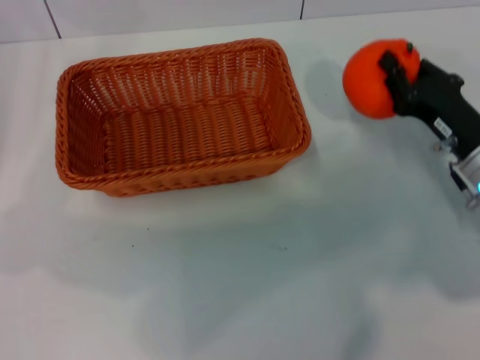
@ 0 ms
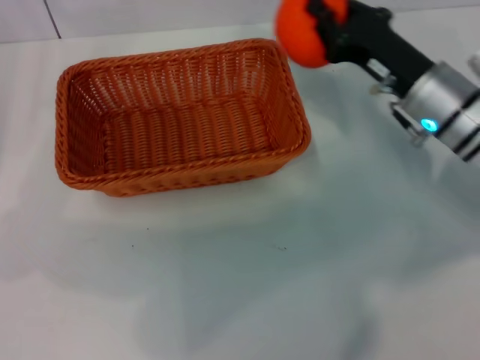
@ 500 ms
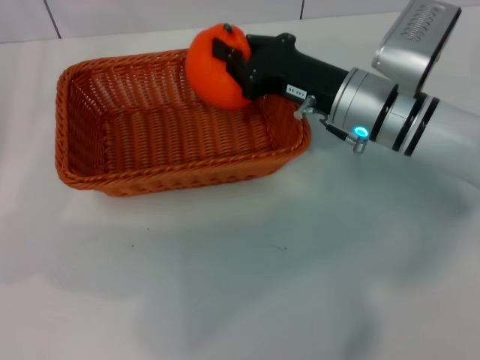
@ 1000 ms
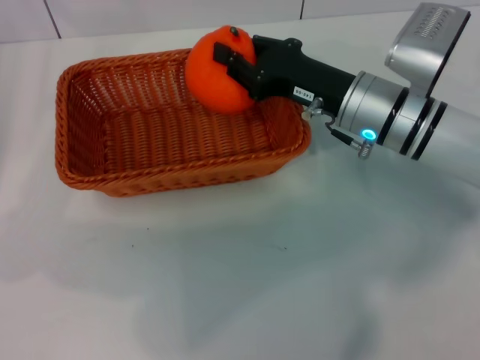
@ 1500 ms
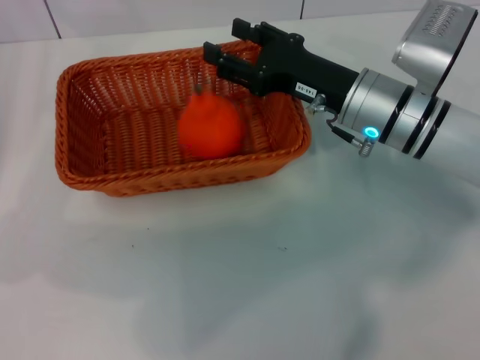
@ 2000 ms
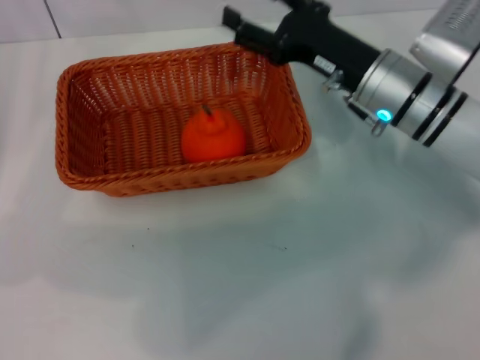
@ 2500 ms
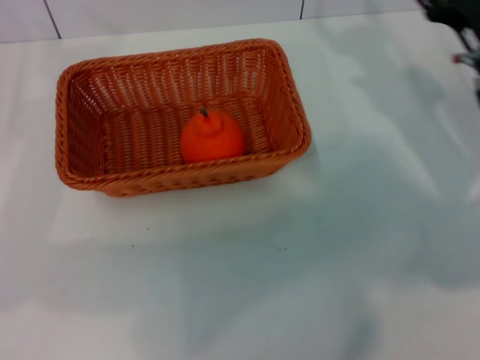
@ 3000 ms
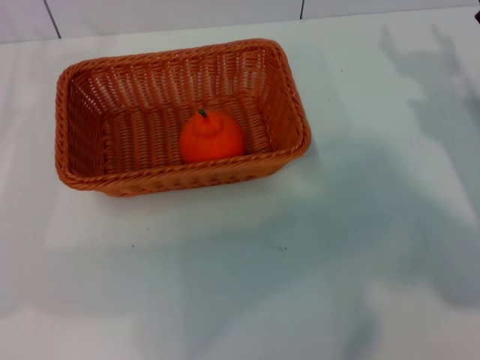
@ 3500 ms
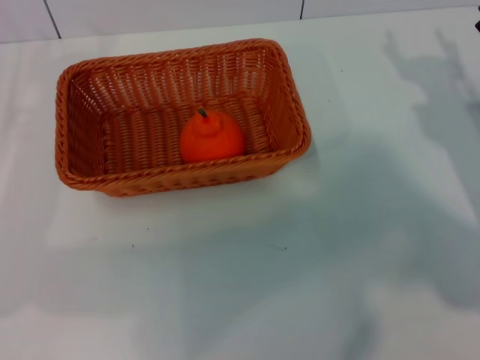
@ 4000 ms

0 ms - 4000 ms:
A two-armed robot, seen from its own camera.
Task of the whole recording: the left gripper pick up the yellow basket and place it horizontally in the middle of the table, the right gripper pick up the orange and place it into the yellow basket.
Step, 500 ms - 2000 ms: Place the orange into the light basket with the right gripper.
0 ms - 2000 ms: The right gripper travels to the left, forward and upward by about 15 cm, and opens.
2000 ms - 4000 ms: The right gripper travels to the right by some 15 cm.

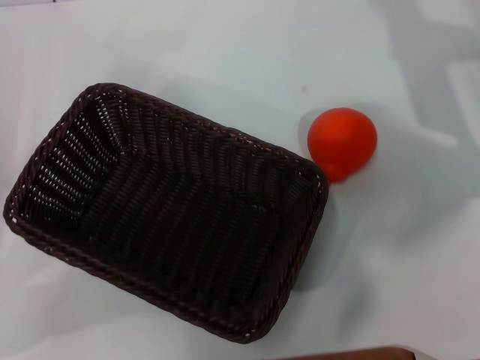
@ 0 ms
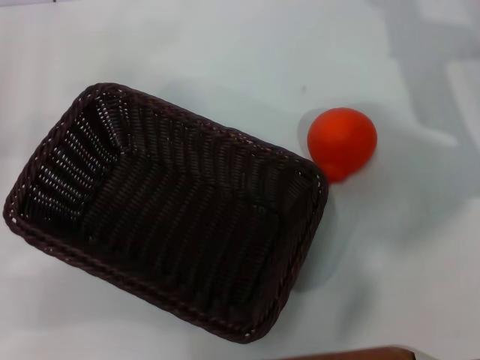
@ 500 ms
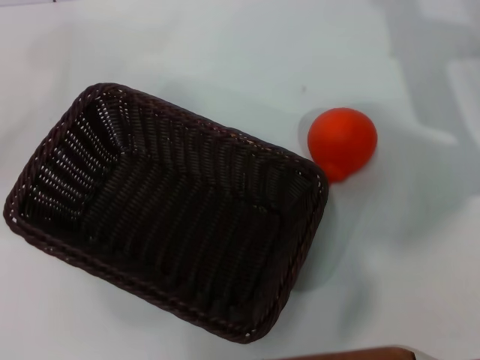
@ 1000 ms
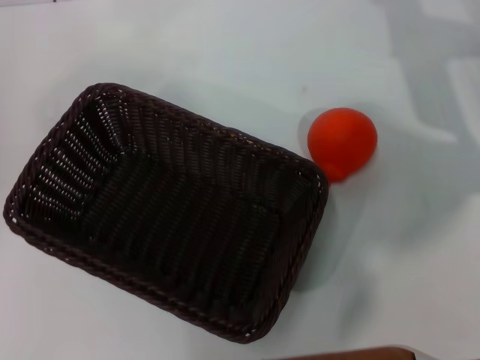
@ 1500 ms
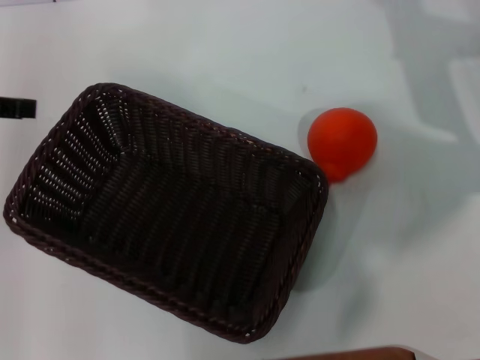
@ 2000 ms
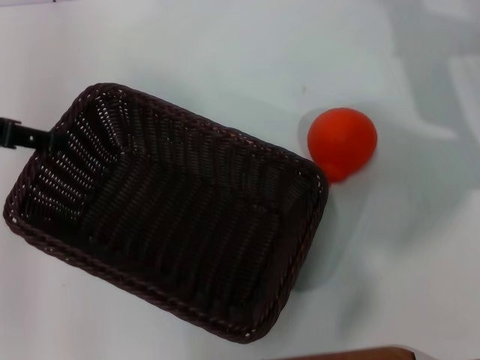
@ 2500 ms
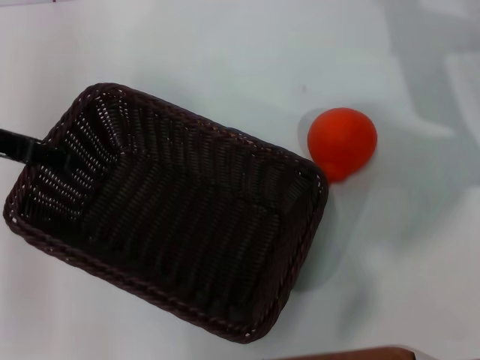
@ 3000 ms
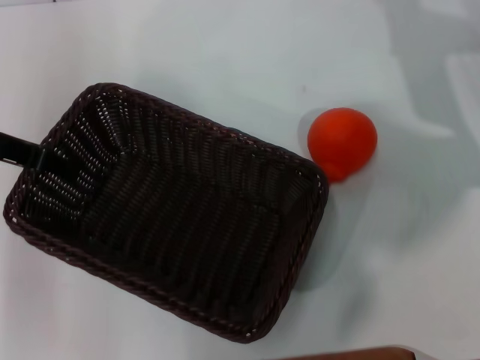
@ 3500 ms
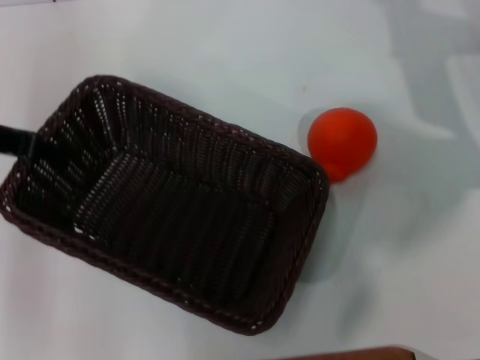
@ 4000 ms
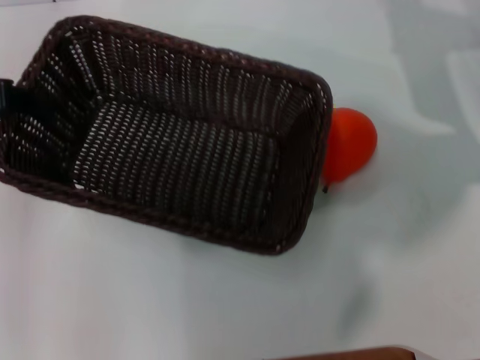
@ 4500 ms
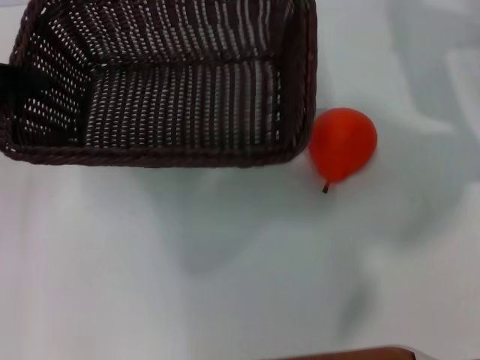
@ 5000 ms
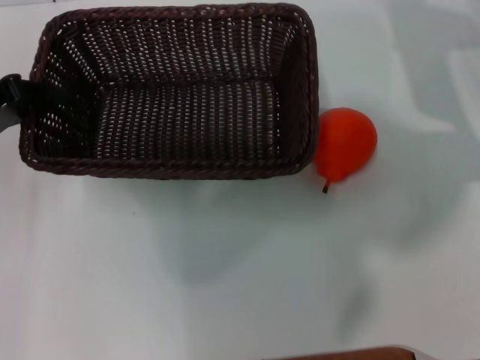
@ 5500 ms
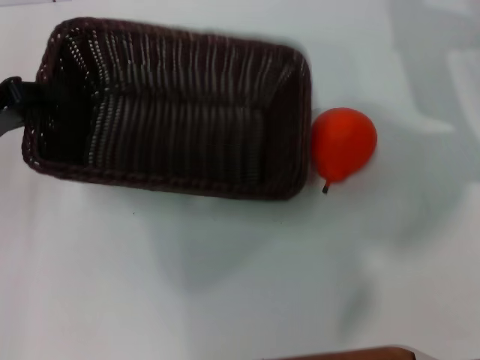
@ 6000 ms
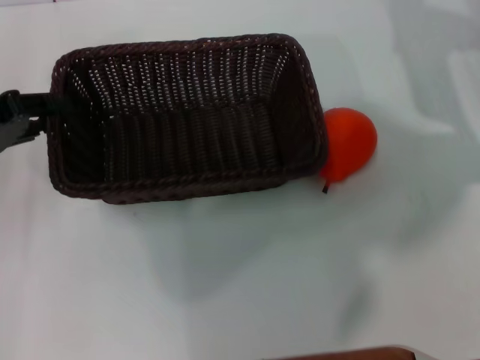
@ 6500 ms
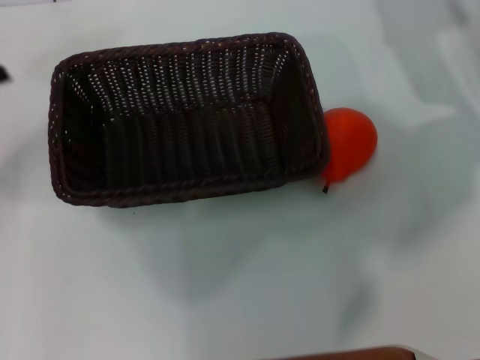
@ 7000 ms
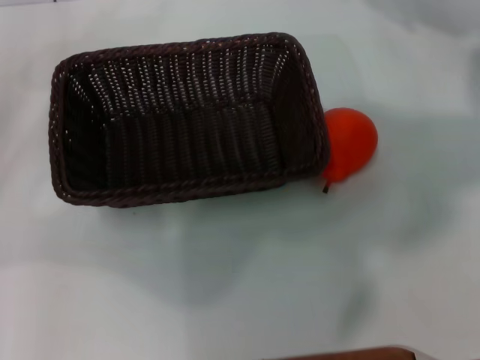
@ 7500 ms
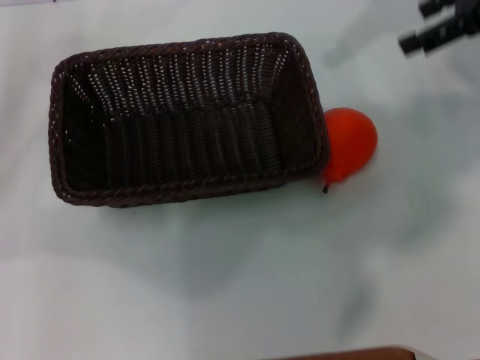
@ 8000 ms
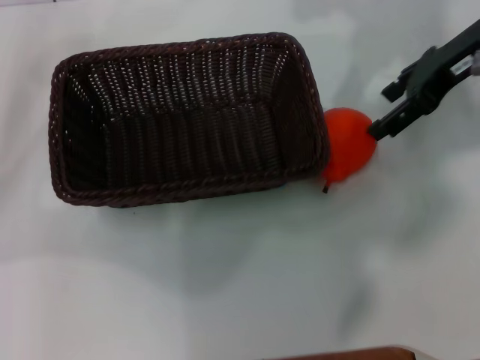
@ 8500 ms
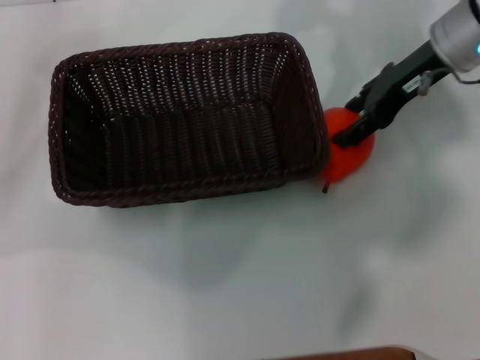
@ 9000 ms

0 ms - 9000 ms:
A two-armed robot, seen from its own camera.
Task of the whole recording: the left gripper pick up the black basket and place it horizontally in the middle of the table, the right gripper pick up the orange and place it into the black basket.
Step, 0 ms - 4000 ms: Pick up the dark basket with the left gripper.
Step, 4500 ms - 6500 ms: Place the dark basket in the center of view with the left gripper.
0 ms - 2000 ms: The left gripper shifts some 15 cm upward and forward.
2000 ms - 4500 ms: The left gripper closes its fingers.
4500 ms - 7000 ms: The left gripper shifts some 5 cm downward, and opens its fingers.
7000 ms - 9000 ms: The right gripper moves to the left, roughly 5 cm, and goes upward and returns, approximately 10 cm each way.

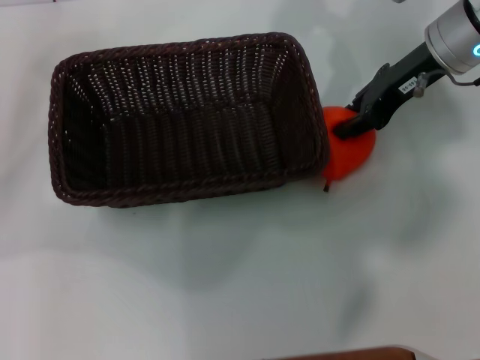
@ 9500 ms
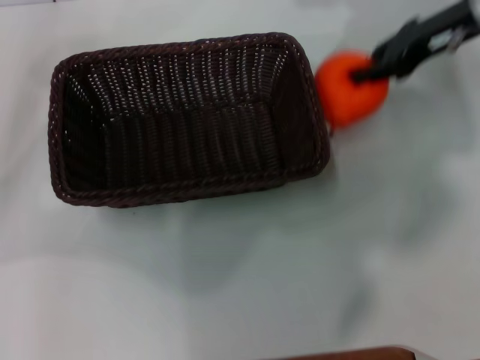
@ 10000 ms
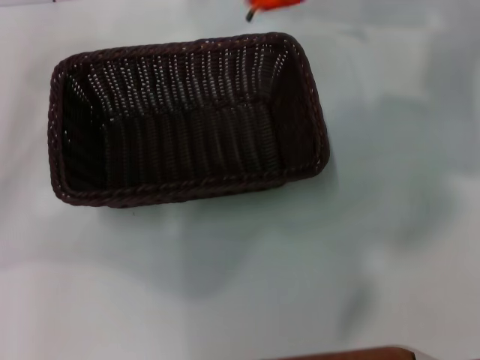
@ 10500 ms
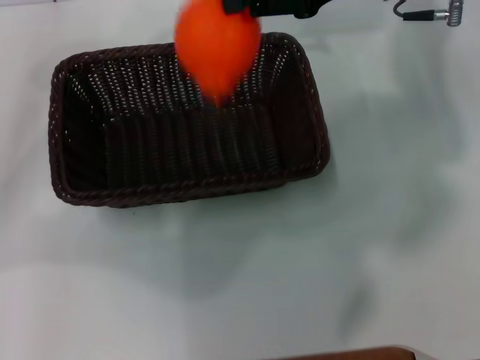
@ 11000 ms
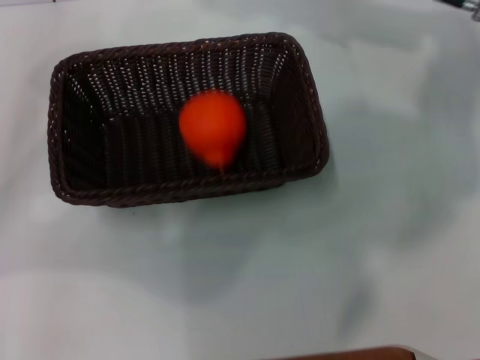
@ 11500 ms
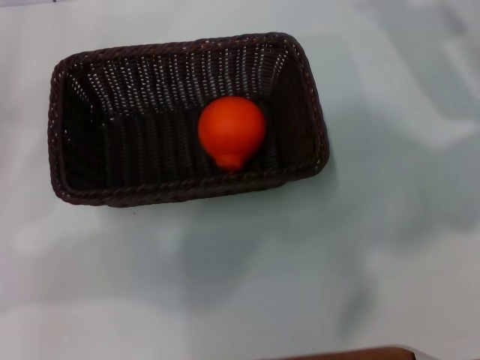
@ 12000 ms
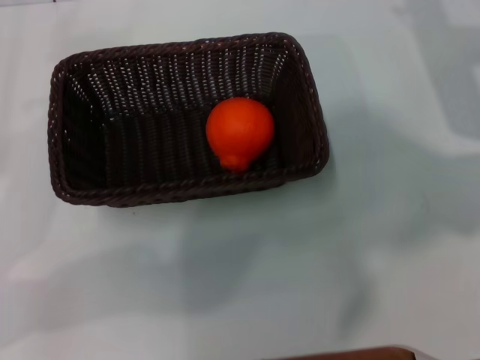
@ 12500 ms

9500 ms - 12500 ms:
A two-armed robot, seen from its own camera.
Task of the whole recording: the left gripper pick up the black basket and place it horizontally in the middle of the table, the right gripper pick up the orange and place it into the black basket.
Step, 10500 ms - 11000 ms: Place the orange into the dark basket with the right gripper.
9500 ms - 11000 ms: The right gripper goes roughly 5 cm upward.
11000 ms - 12500 ms: The right gripper goes approximately 15 cm to the right and downward, and opens up, while the left gripper ends up roughly 5 cm from where it was.
